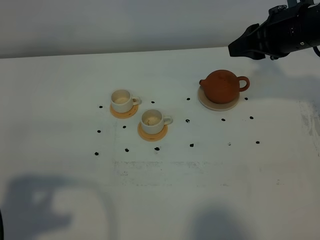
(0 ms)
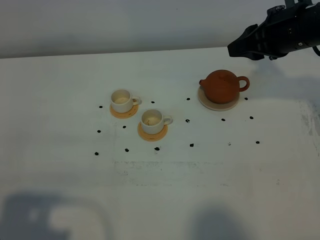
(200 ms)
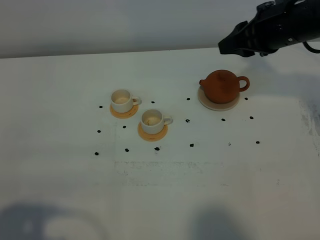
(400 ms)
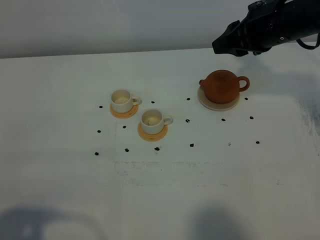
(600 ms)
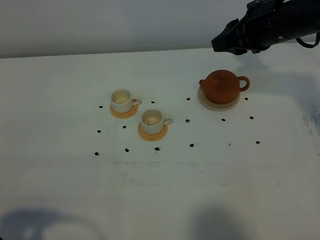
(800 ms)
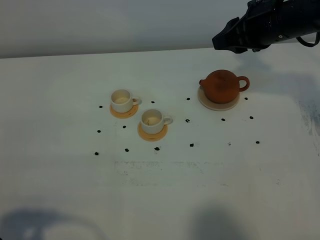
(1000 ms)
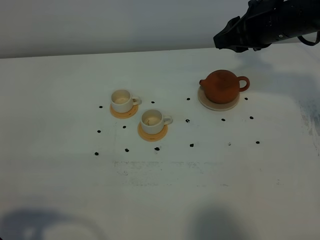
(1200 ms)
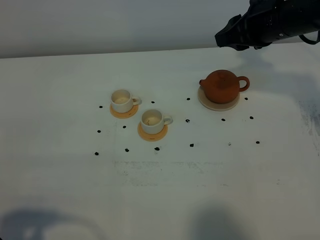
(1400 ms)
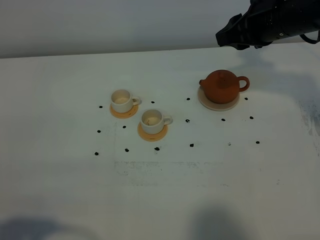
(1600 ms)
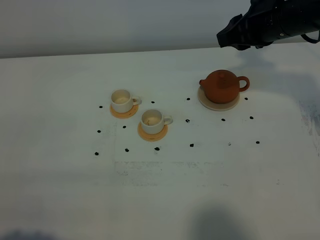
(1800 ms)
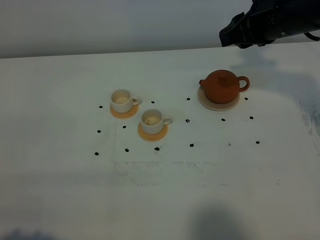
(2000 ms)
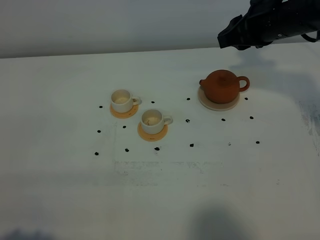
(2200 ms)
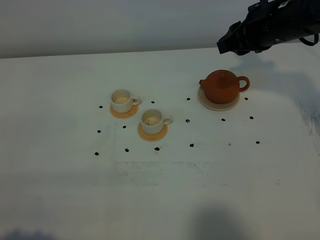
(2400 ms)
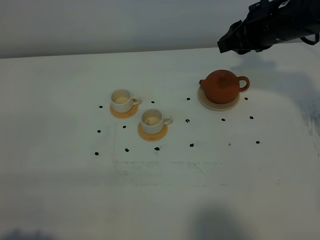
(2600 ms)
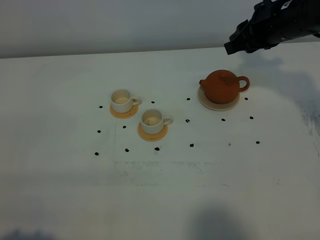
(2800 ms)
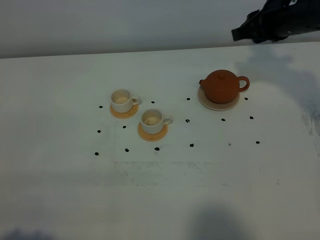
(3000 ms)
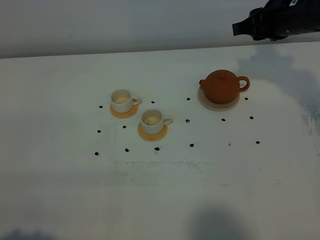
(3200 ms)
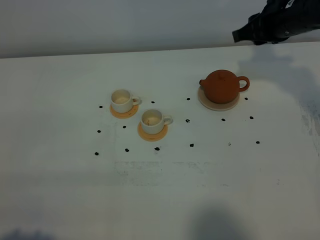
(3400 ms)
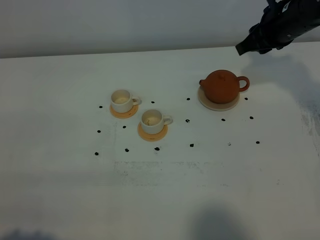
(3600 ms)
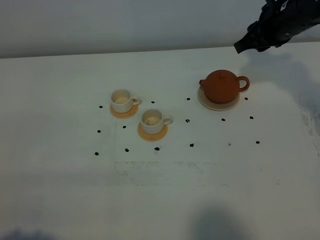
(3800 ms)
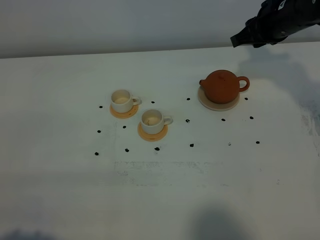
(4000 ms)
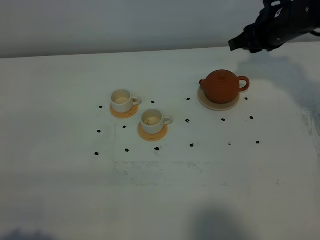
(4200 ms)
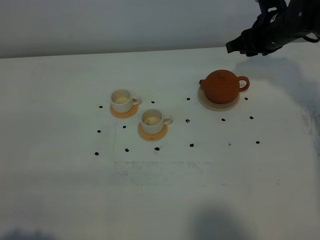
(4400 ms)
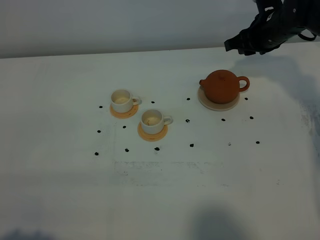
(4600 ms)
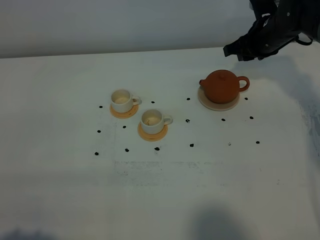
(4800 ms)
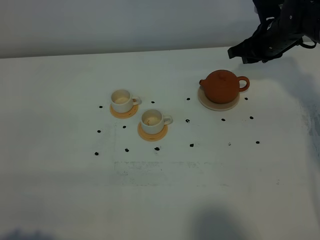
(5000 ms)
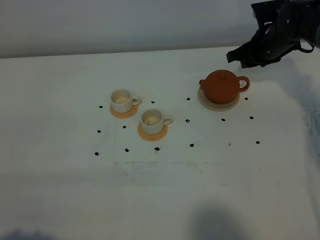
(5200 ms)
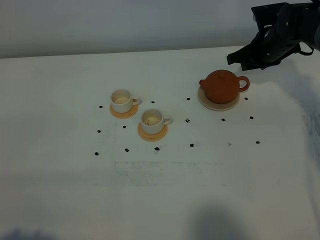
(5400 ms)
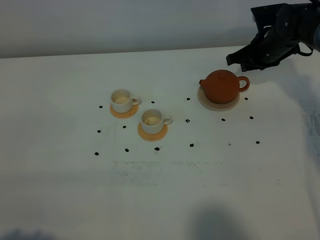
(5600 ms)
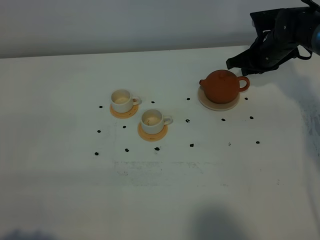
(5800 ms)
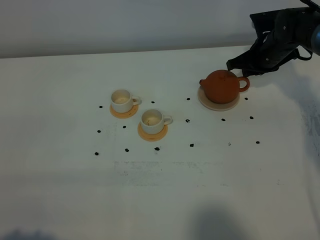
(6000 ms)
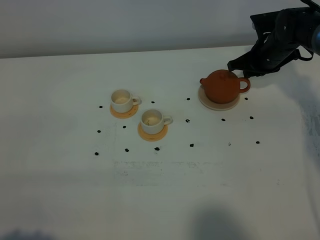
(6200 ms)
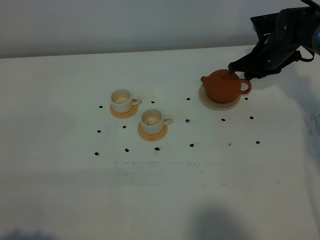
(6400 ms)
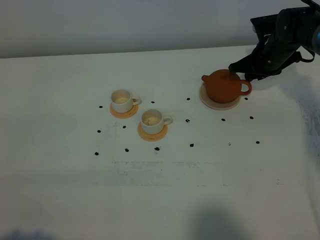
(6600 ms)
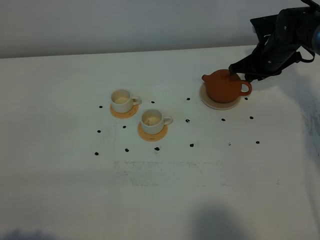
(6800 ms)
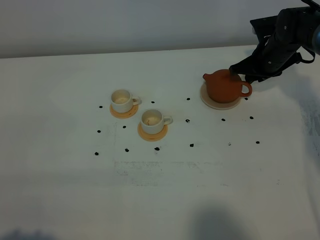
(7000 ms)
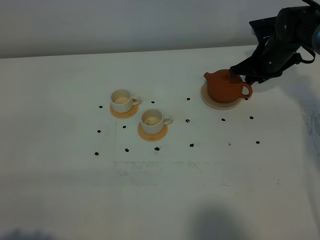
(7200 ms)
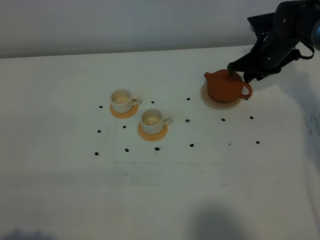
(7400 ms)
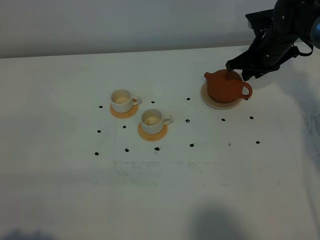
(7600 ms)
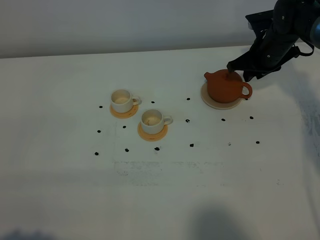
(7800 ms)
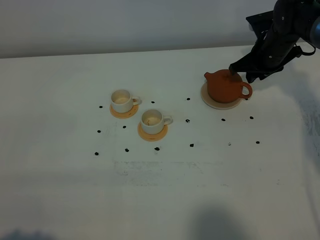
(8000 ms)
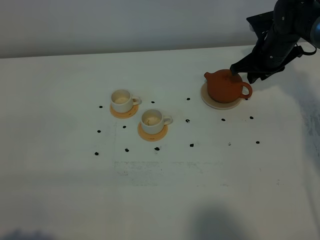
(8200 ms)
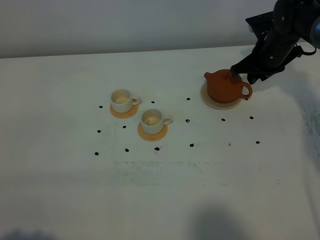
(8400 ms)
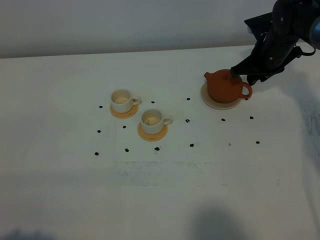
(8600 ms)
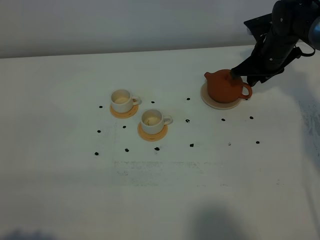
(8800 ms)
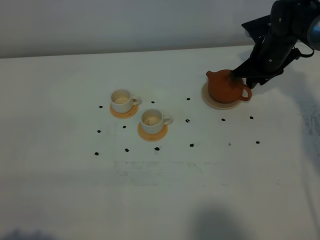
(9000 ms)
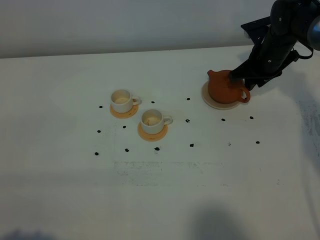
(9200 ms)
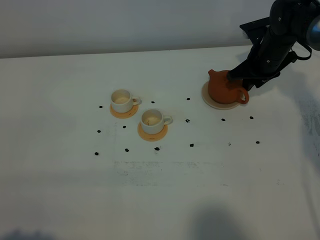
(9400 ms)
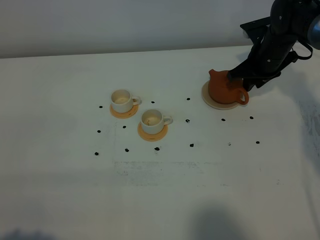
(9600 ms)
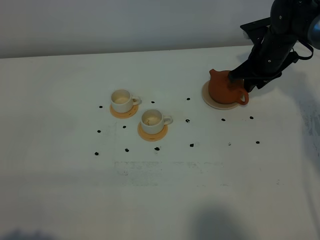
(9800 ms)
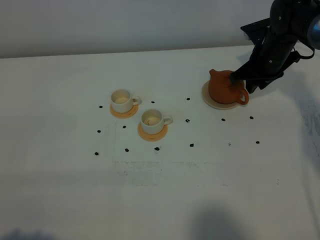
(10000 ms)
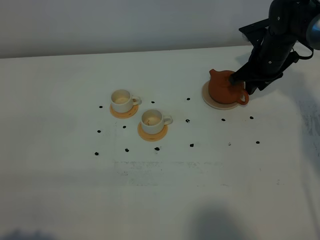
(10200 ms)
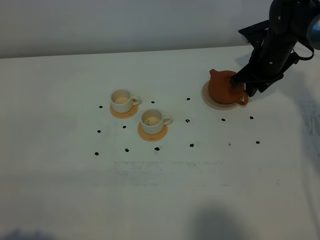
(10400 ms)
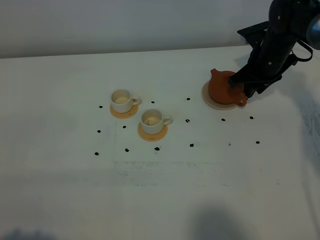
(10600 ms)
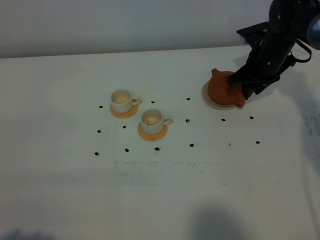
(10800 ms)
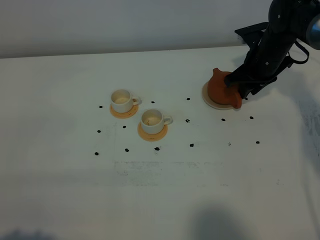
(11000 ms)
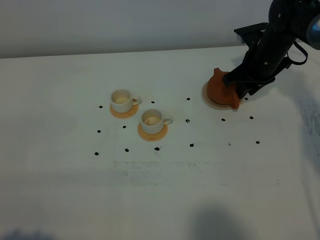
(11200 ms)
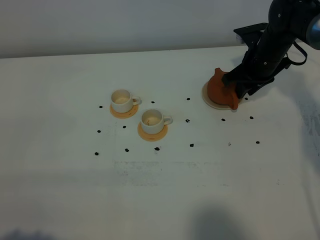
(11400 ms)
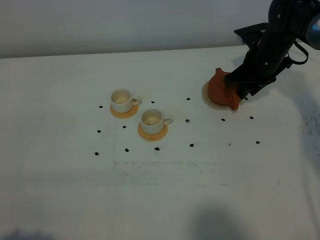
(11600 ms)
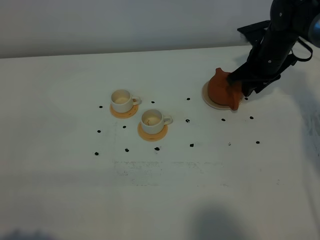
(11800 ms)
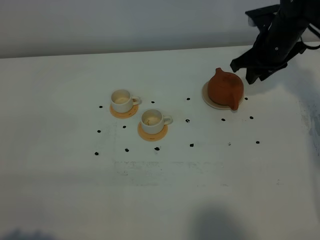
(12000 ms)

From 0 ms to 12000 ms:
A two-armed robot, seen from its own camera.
Task of the whole recording: grasp the brown teapot and pour the tea into the two white teacups one by one, put the brown teapot back in its original place.
From 0 ms to 1600 ms: The left gripper is displaced downward and backward by approximately 5 cm.
From 1600 ms to 3000 ms: The grippers move only a little.
From 3000 ms to 4400 ms: The right gripper travels downward and forward by roughly 10 cm.
From 4400 ms to 6000 ms: The right gripper goes some 5 cm downward.
From 6000 ms to 9000 ms: The grippers stay close to where they were, moving slightly.
From 9000 ms to 12000 ms: The grippers make only small movements.

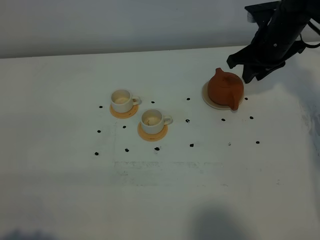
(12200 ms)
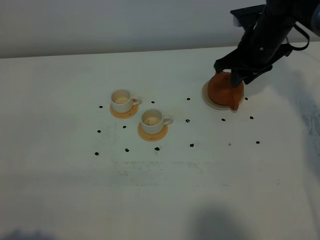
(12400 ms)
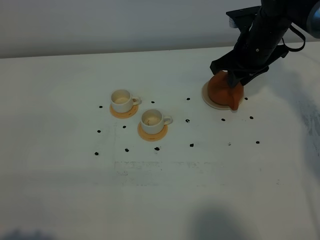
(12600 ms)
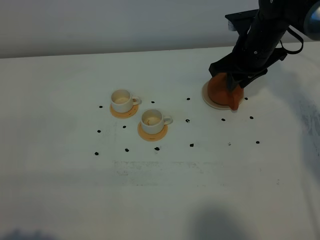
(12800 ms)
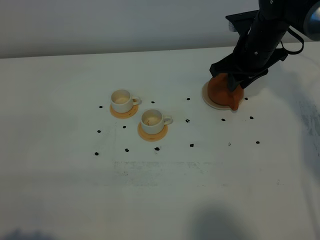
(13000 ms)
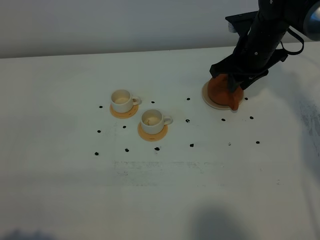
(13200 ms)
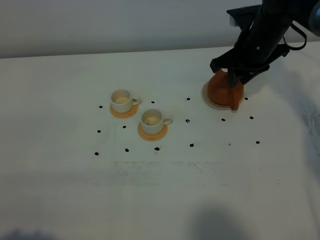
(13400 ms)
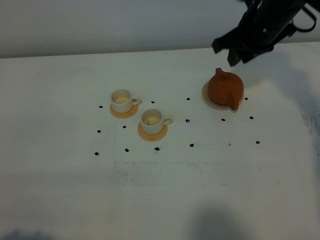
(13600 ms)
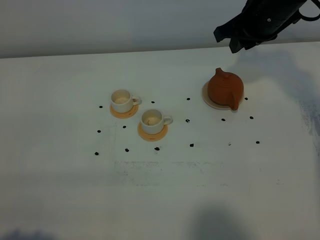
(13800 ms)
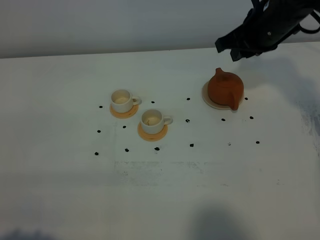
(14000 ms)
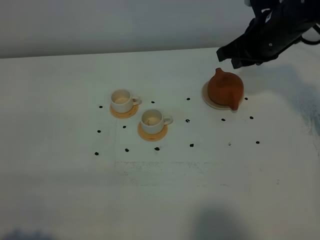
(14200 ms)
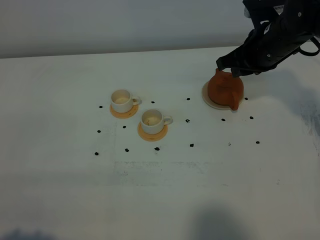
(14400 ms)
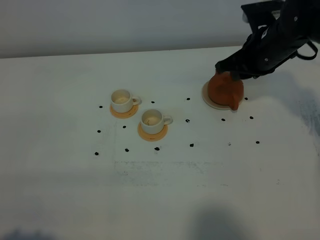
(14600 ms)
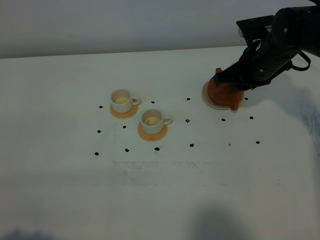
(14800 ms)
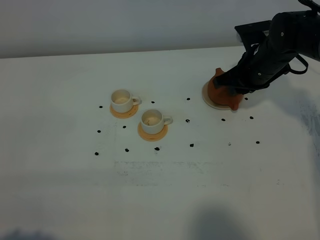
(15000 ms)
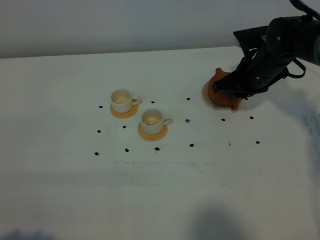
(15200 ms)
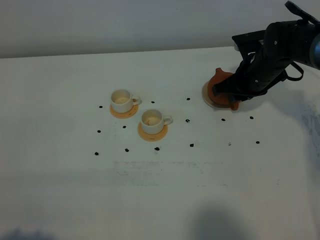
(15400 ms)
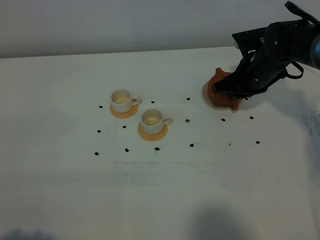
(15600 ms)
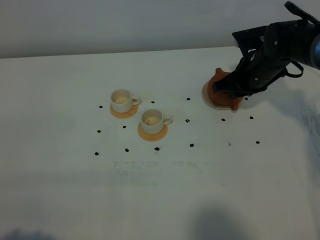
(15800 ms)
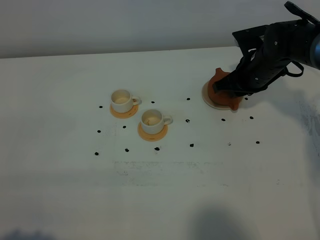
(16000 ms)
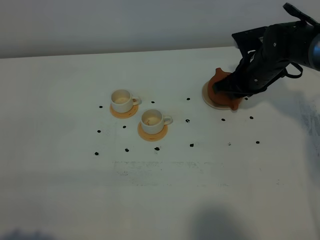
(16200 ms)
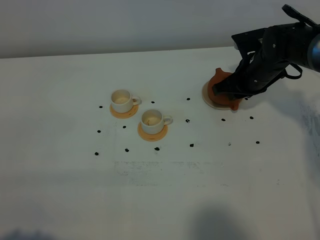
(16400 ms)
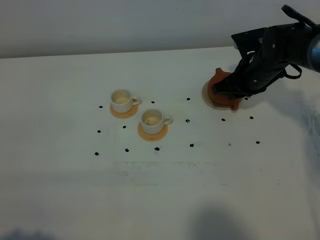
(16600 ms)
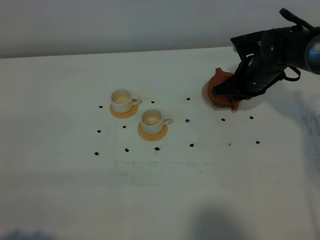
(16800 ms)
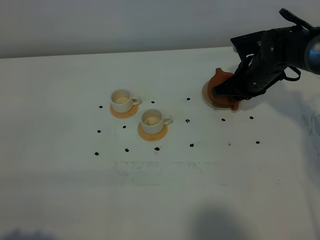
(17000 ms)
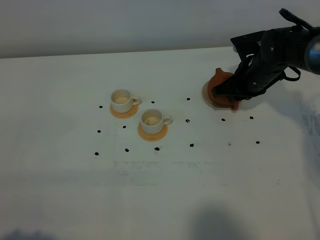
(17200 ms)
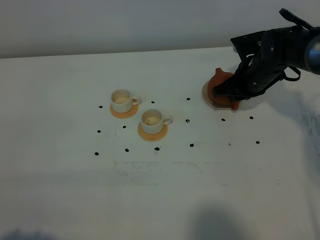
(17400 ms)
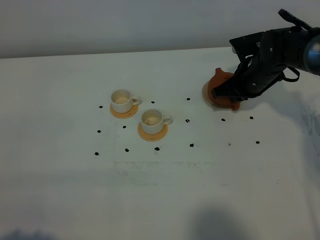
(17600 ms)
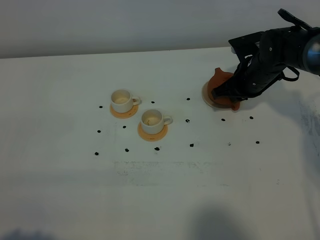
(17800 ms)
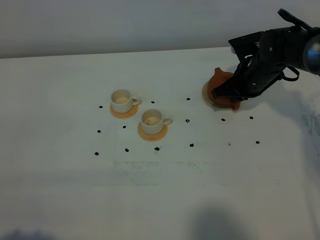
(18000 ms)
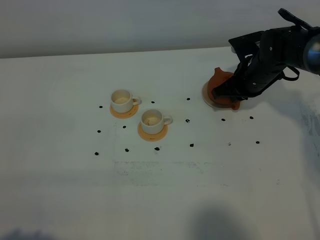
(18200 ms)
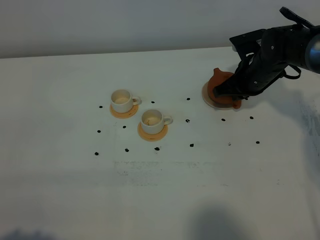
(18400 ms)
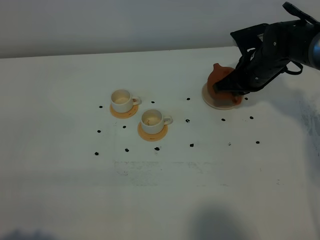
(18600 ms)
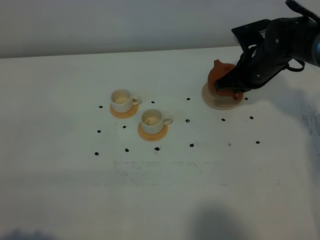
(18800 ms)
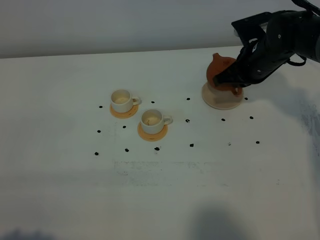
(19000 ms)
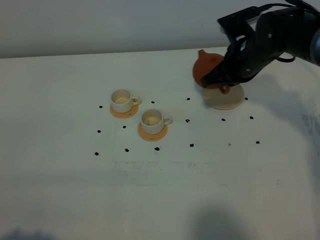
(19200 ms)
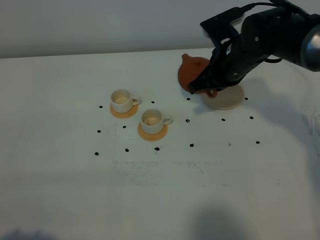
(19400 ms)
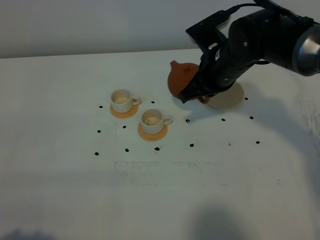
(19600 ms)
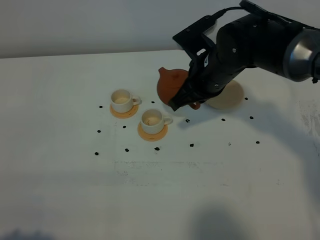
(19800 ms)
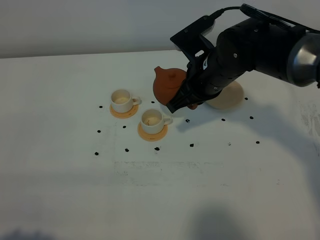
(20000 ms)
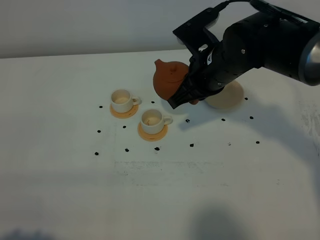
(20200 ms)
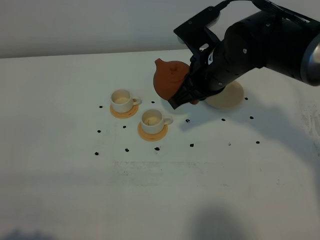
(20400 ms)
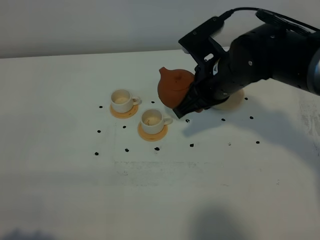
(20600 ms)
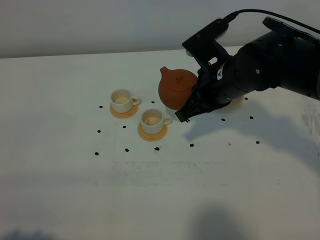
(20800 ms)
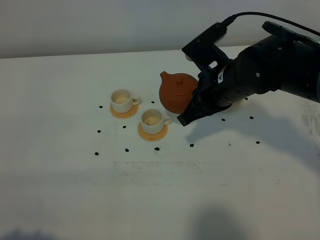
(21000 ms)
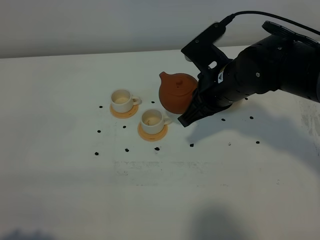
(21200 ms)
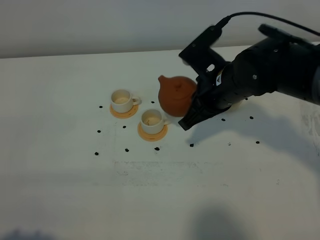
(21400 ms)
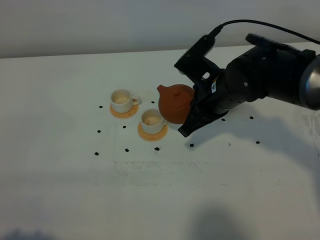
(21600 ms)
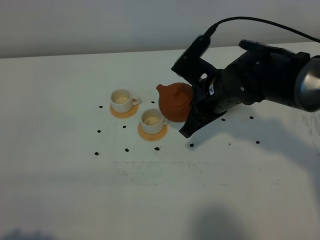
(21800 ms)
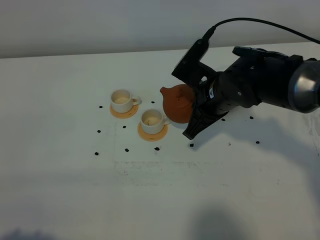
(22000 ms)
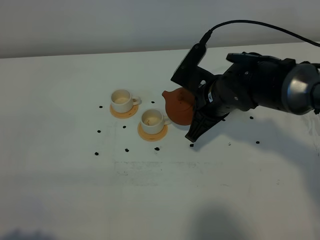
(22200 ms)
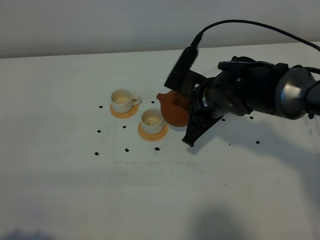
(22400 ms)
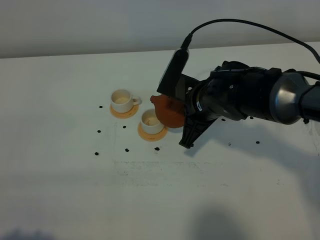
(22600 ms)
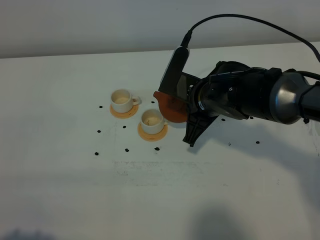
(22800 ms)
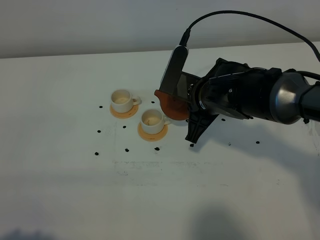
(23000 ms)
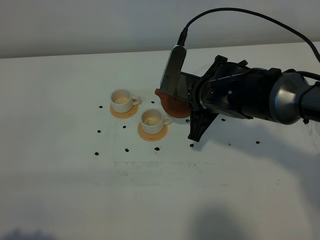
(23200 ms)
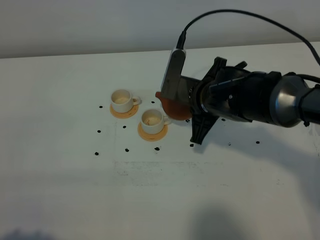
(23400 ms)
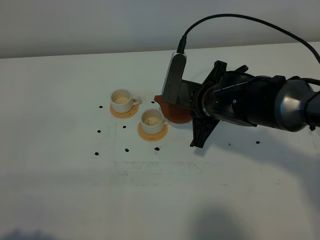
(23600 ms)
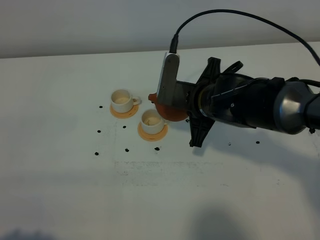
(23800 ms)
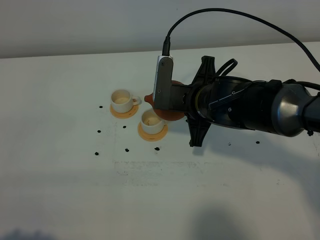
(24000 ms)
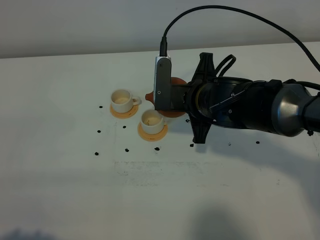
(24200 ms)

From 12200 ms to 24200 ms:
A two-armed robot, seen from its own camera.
Task of the whole recording: grasp the brown teapot and pour the tea into the two white teacups one by one, put the brown teapot back in its original place.
Step, from 12200 ms to 19000 ms: Pick up the teapot with the right gripper.
From 12200 ms to 13800 ms: The right gripper shifts some 5 cm upward.
From 13800 ms to 15200 ms: The right gripper goes about 10 cm downward.
From 15200 ms to 16600 ms: The grippers make only small movements.
From 16600 ms to 18200 ms: The right gripper closes up.
From 18200 ms to 19800 ms: The right gripper is displaced to the left, upward and backward by some 15 cm.
From 19800 ms to 21200 ms: There are only small adjustments of the grippers.
From 21200 ms to 22600 ms: The right gripper ends up some 5 cm from where it was.
